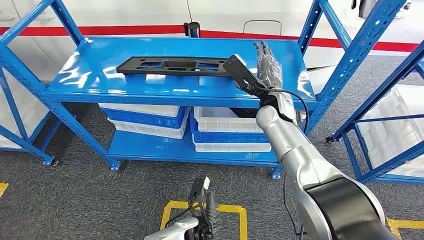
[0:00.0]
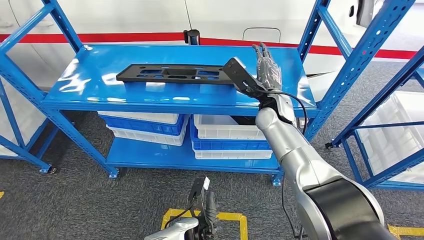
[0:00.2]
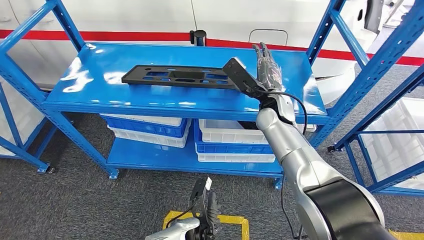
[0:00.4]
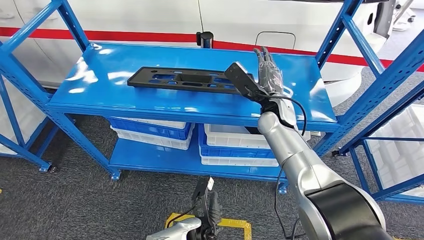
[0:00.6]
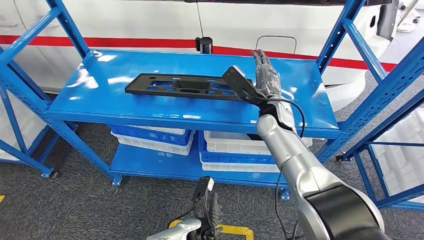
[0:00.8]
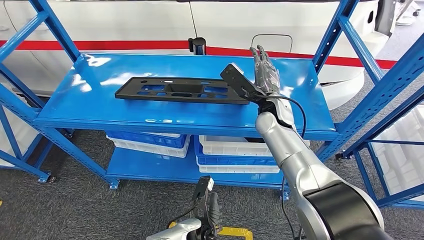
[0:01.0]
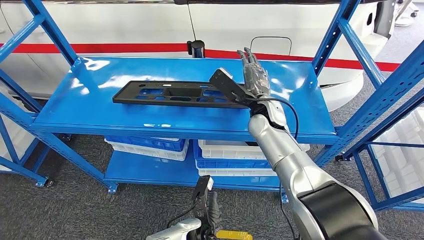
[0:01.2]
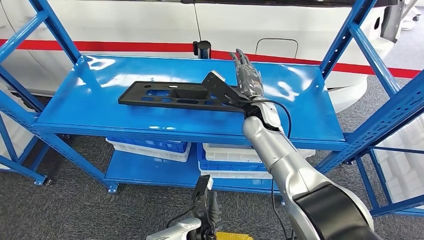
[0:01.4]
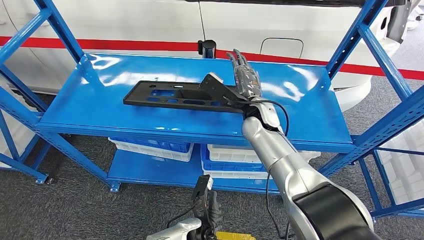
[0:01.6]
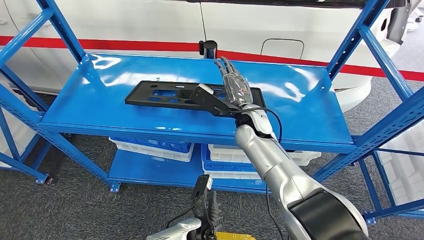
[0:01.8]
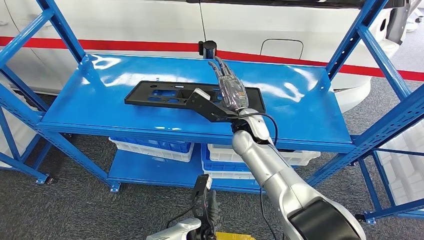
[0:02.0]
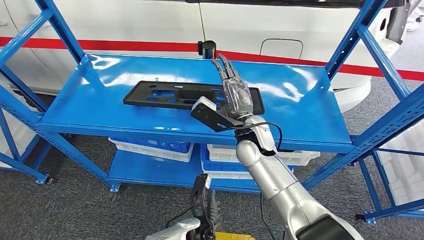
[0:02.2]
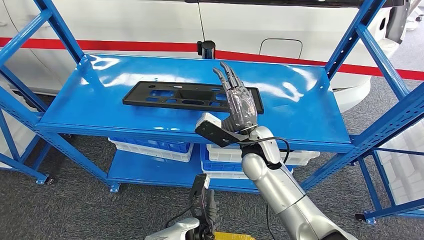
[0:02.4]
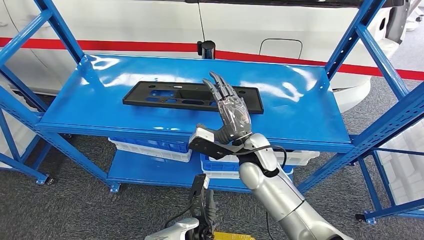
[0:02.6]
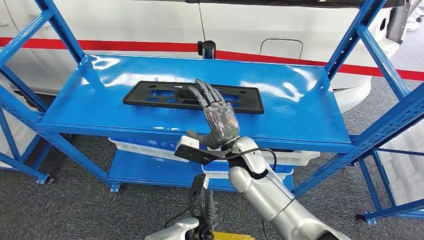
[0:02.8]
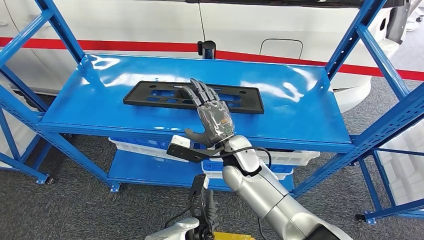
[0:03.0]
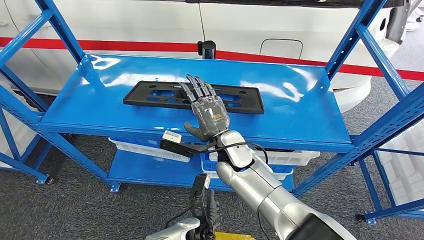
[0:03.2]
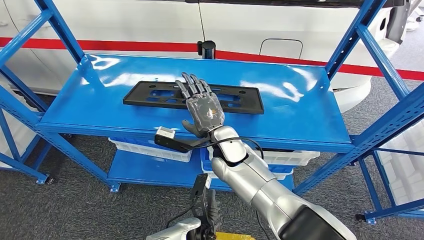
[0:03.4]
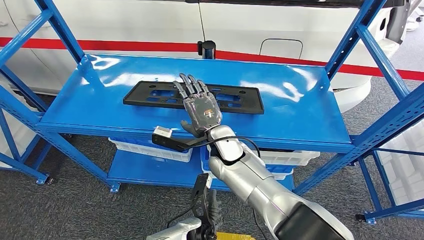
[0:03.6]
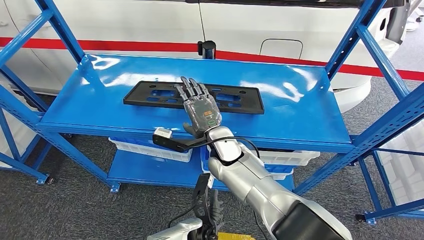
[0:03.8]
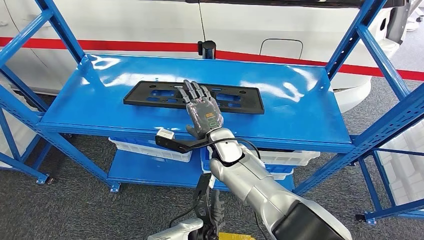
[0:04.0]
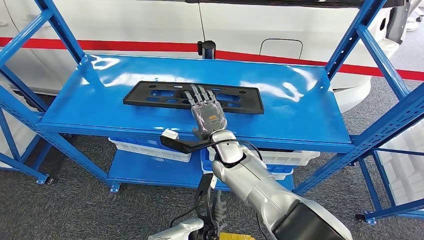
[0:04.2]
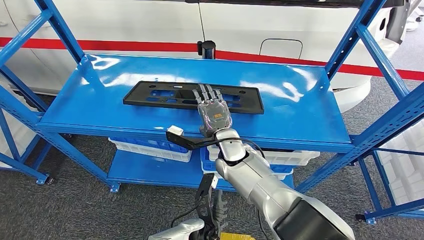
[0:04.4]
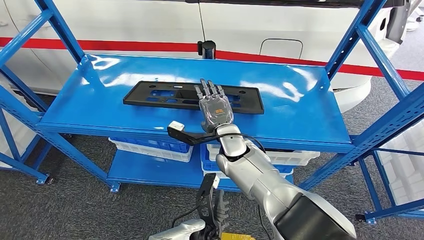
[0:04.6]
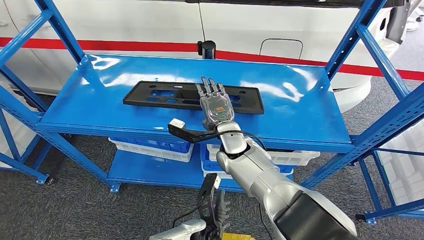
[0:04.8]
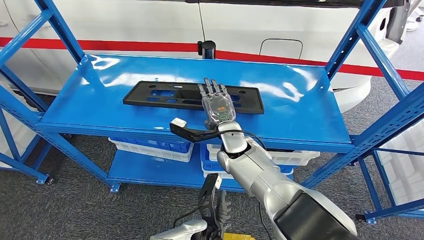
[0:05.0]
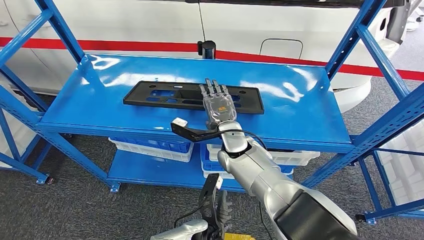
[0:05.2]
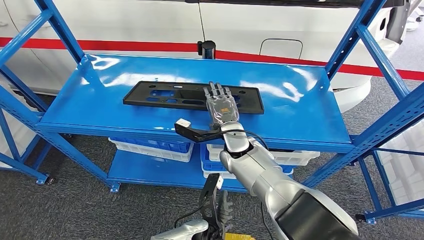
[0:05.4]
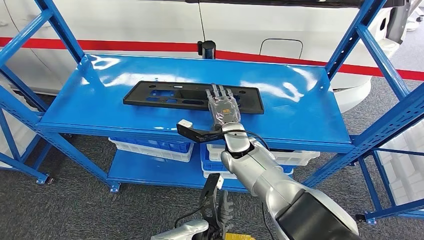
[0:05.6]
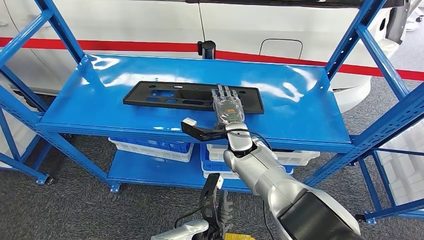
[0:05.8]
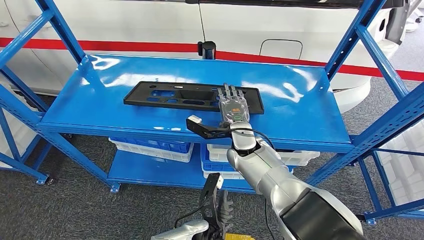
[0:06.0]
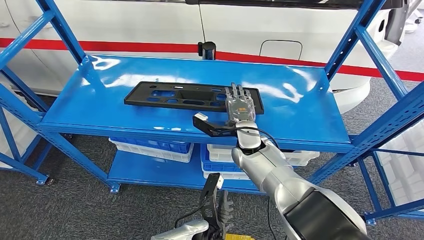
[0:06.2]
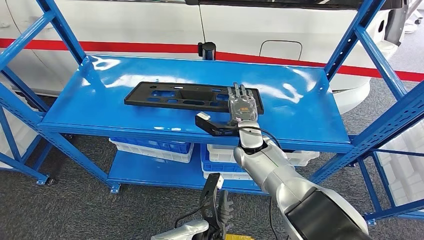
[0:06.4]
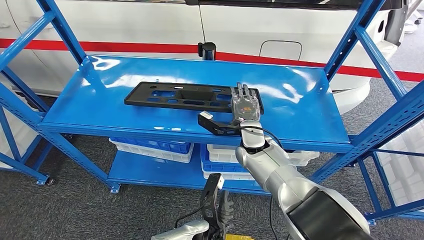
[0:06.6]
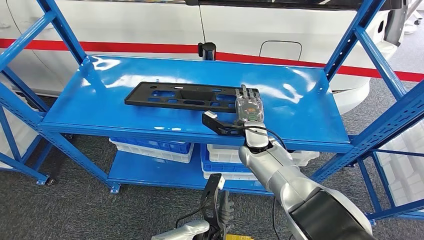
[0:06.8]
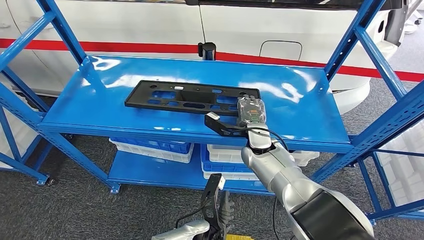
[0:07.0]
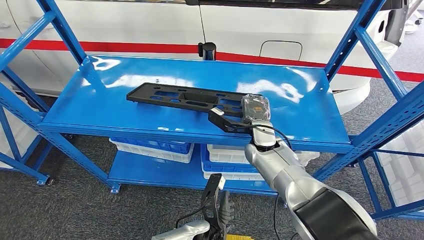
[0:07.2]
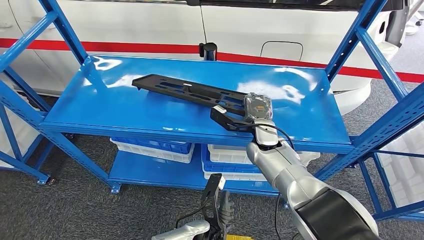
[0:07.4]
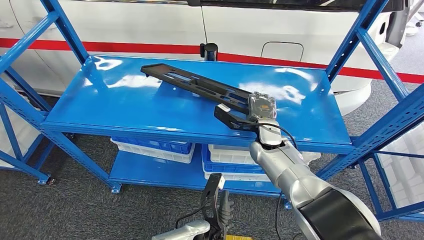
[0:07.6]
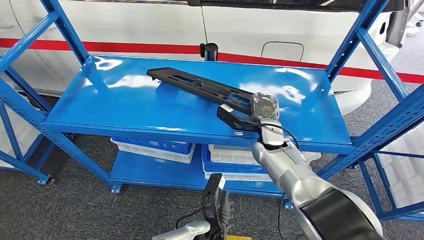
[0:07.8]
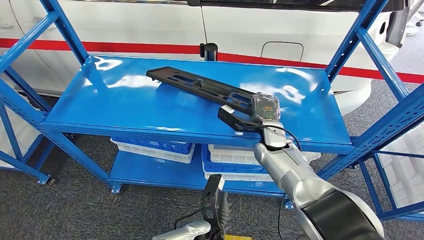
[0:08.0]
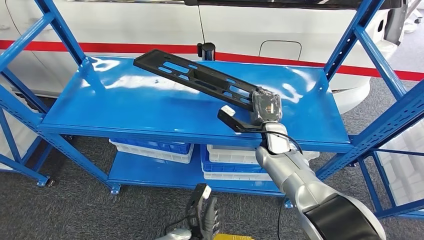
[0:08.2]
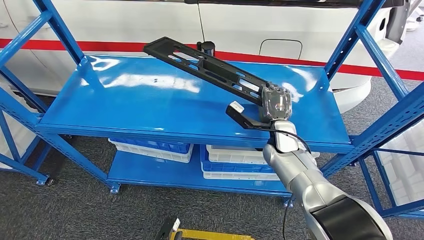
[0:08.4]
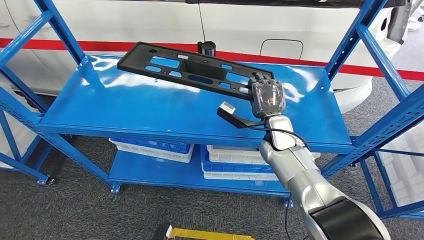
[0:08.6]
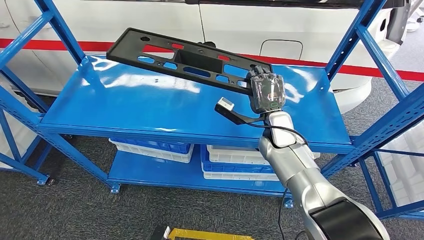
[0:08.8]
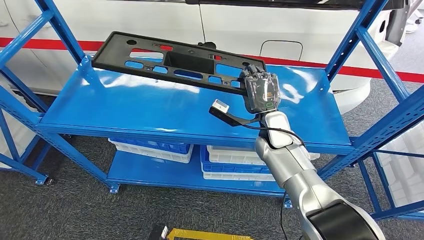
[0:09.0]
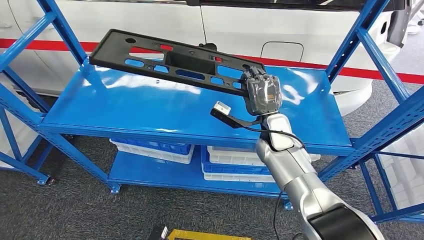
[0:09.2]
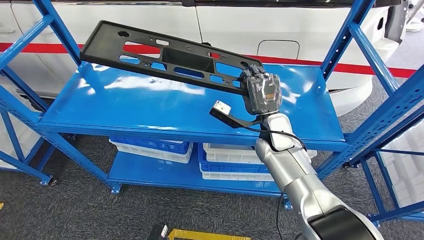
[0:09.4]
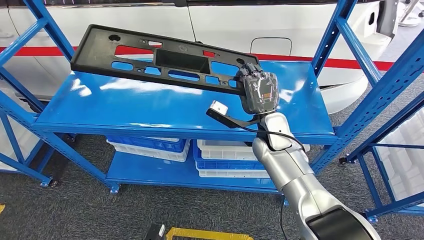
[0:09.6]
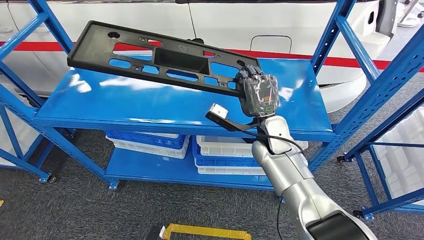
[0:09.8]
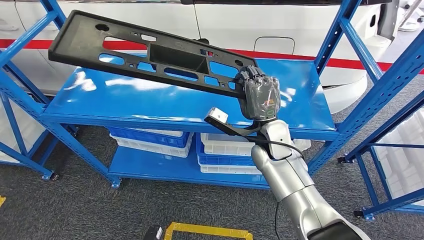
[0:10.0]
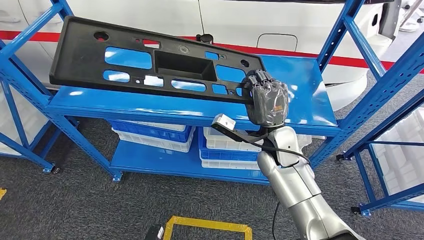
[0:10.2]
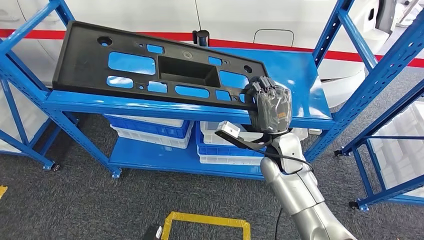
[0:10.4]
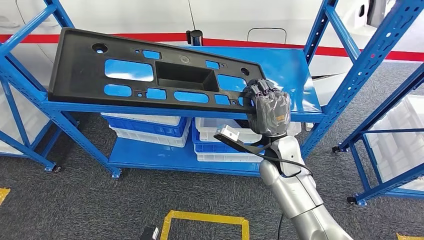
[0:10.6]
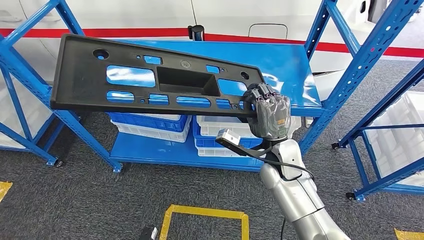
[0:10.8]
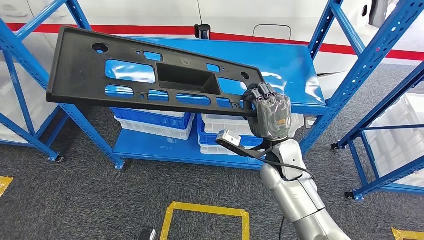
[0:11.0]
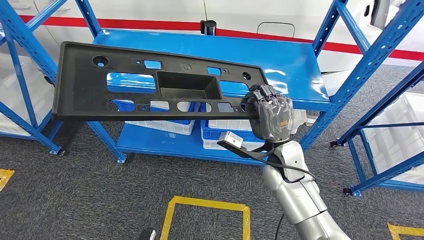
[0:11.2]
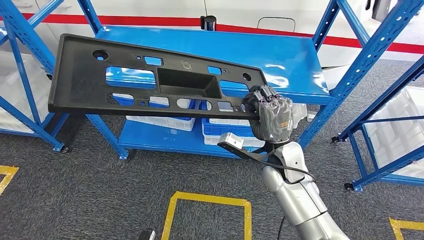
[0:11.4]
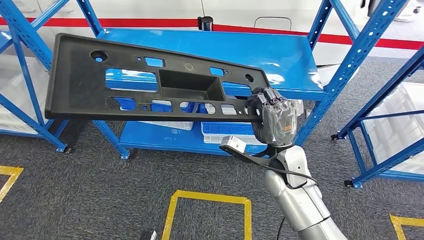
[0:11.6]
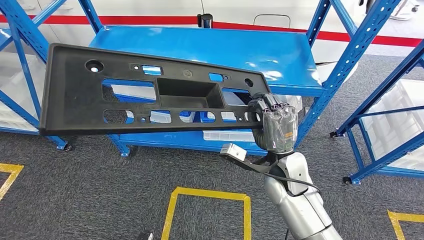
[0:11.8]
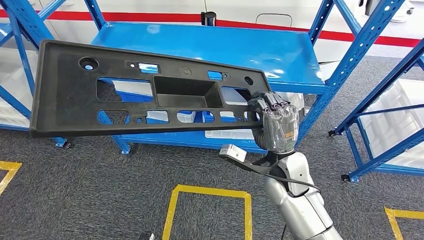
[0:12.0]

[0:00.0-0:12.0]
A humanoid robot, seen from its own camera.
Step, 0:00.0 to 0:12.0: Pick up the large material from the shelf.
0:04.4 to 0:06.0: The hands make only small movements.

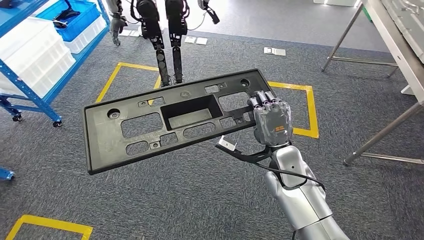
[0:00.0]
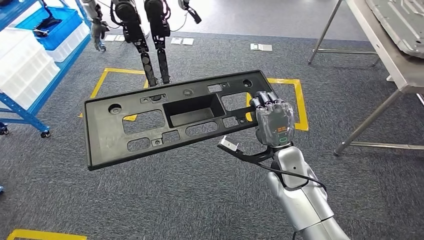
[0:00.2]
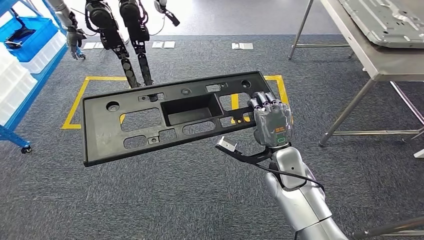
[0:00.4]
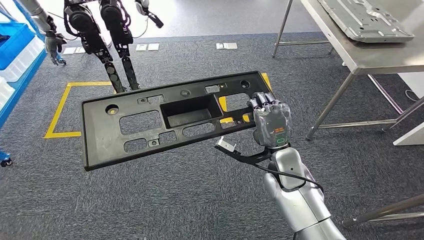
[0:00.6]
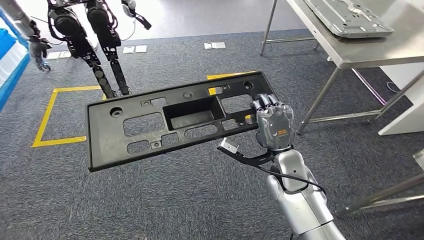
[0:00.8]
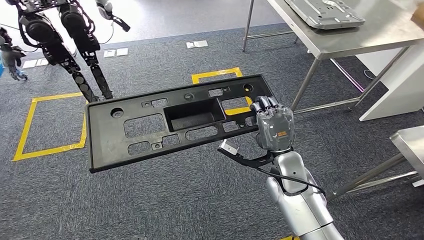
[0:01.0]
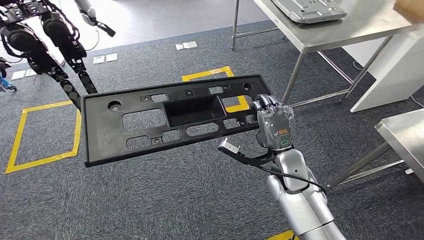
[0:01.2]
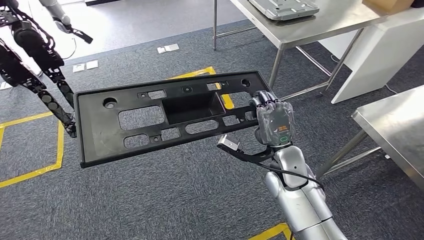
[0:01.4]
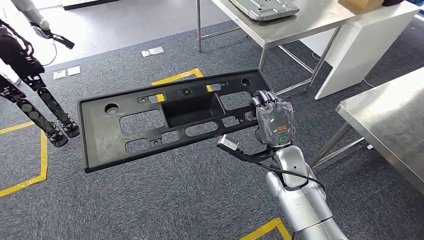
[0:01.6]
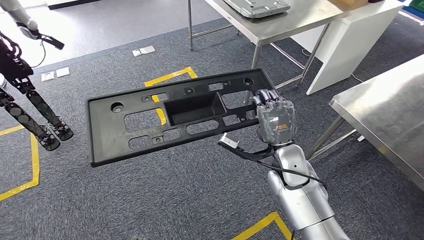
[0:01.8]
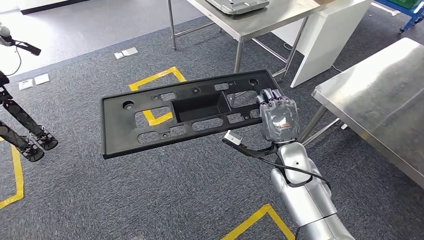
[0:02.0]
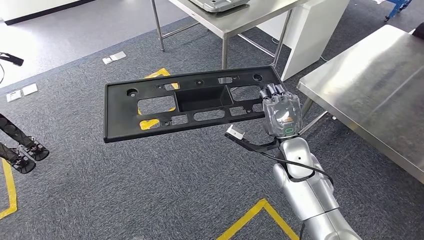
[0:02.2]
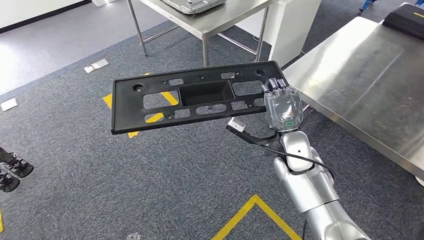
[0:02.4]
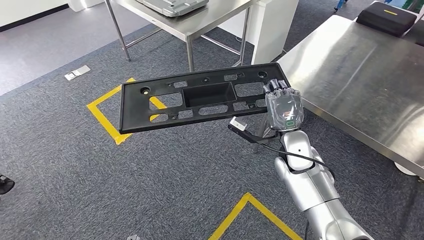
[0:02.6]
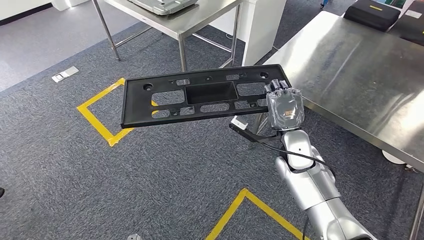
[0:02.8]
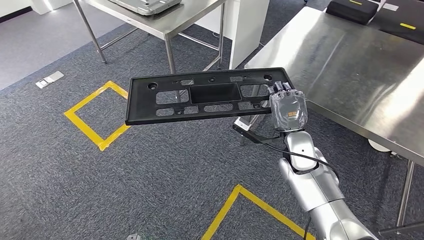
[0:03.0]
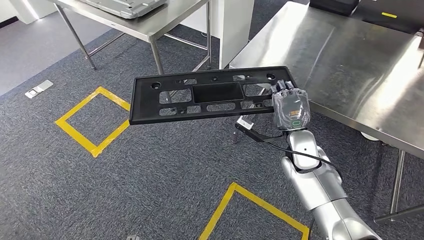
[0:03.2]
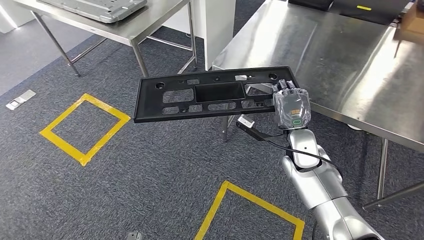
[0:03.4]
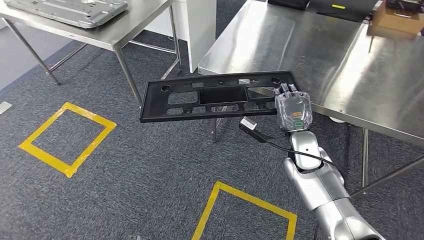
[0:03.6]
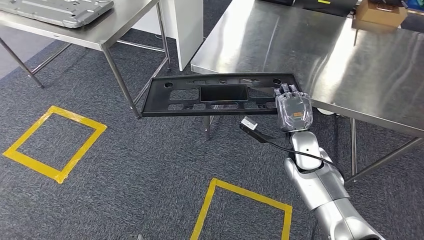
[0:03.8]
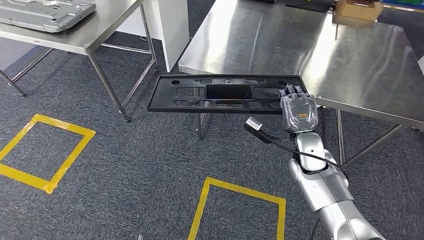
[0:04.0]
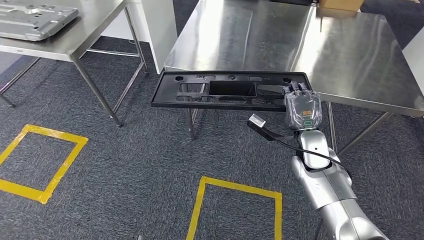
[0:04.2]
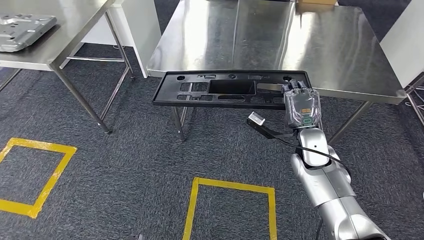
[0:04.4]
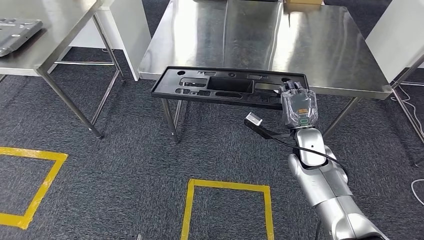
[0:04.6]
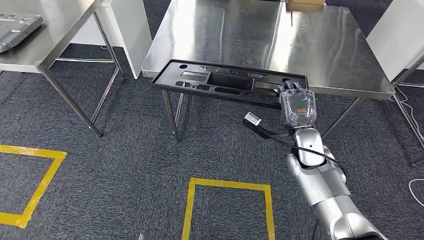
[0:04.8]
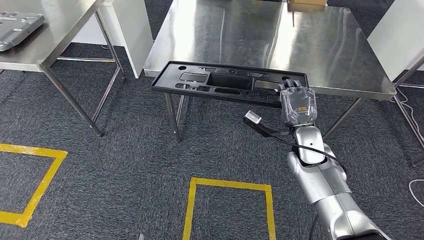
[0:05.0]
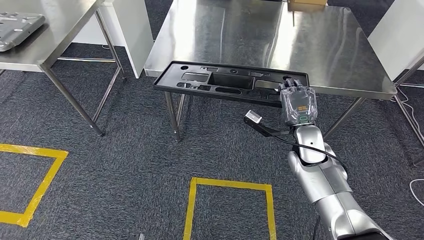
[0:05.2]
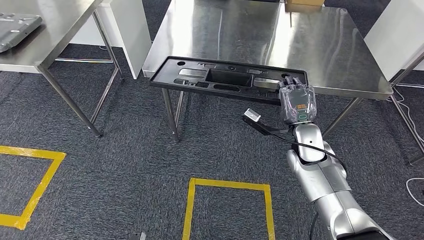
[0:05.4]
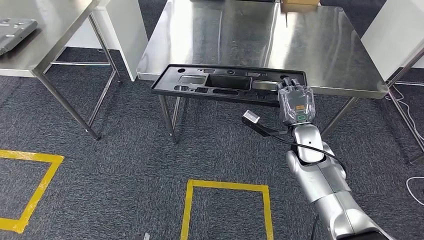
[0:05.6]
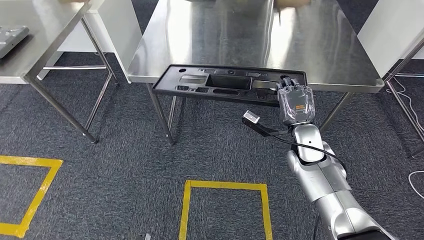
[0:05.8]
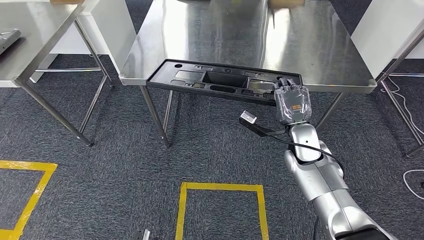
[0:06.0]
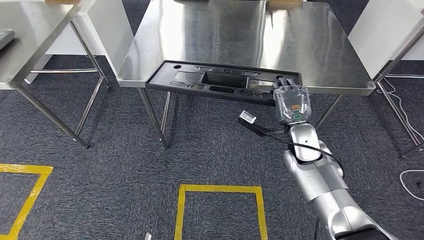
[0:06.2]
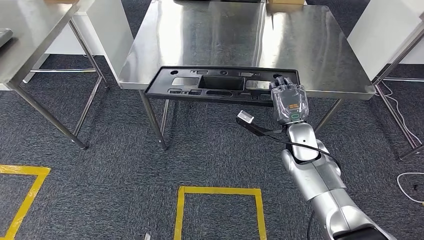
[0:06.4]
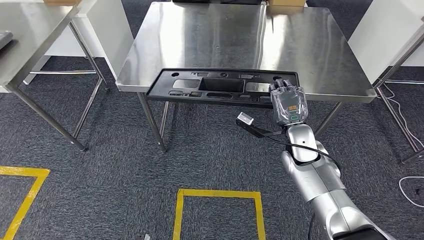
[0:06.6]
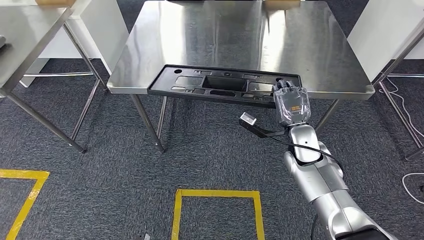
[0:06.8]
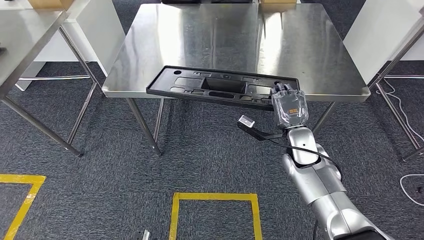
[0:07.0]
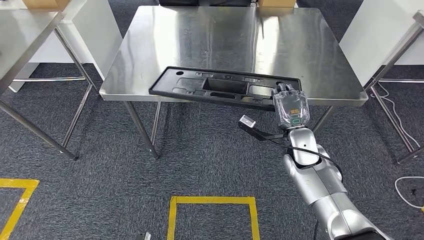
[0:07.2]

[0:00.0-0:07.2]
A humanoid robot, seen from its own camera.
Step, 0:00.0 to 0:06.2: Move the large material to the workbench.
